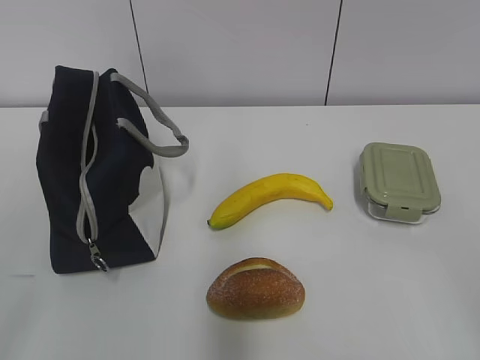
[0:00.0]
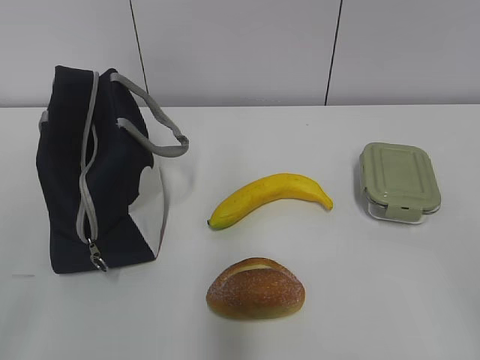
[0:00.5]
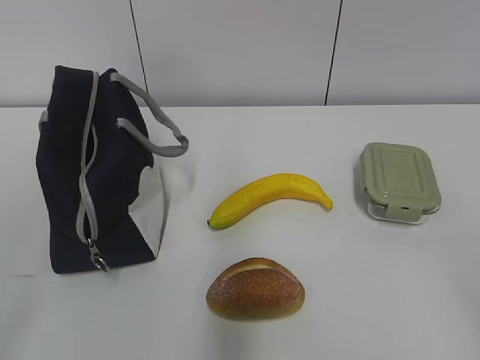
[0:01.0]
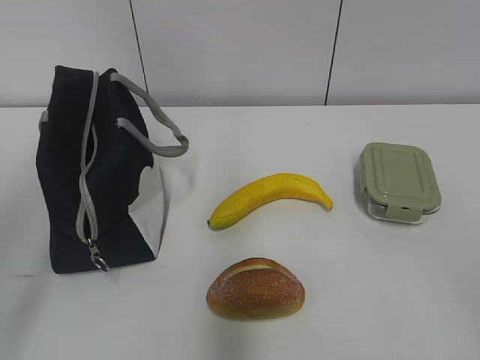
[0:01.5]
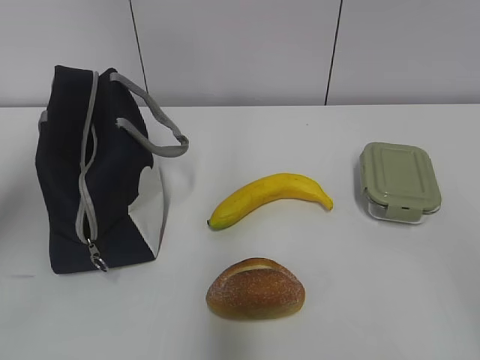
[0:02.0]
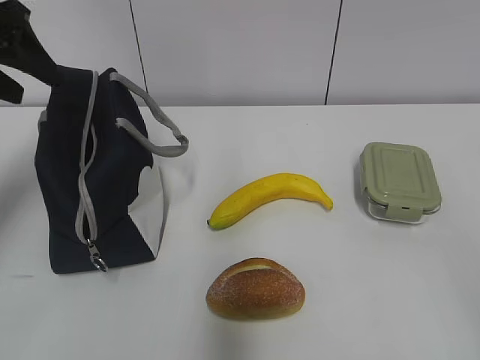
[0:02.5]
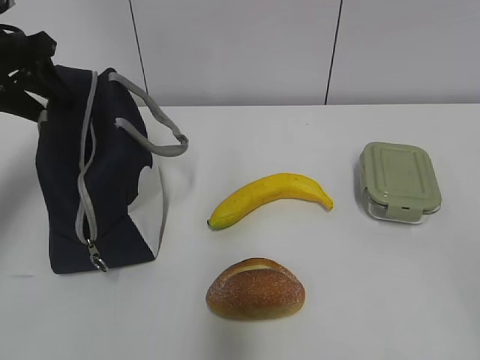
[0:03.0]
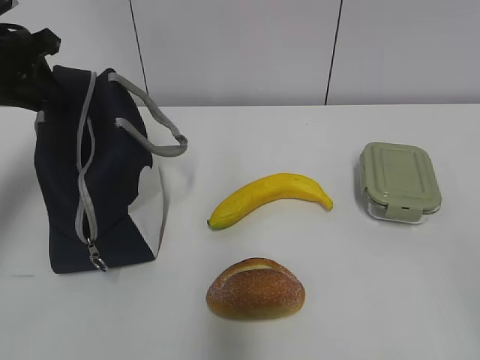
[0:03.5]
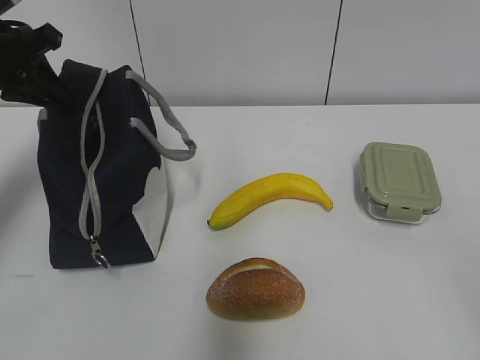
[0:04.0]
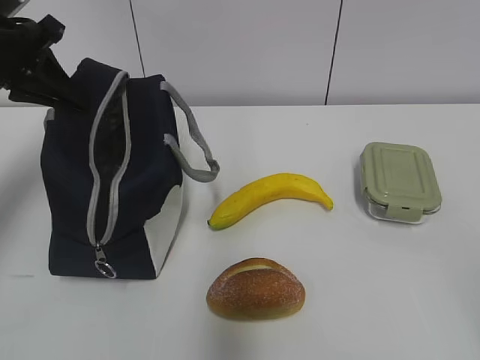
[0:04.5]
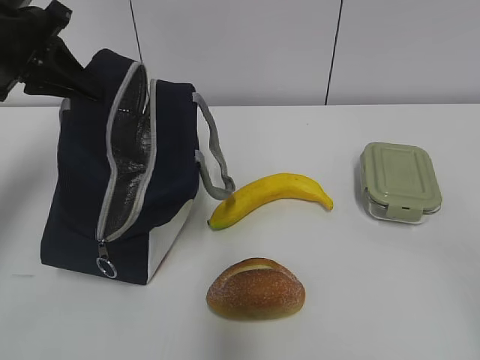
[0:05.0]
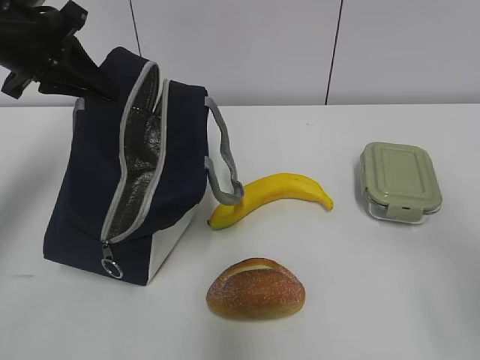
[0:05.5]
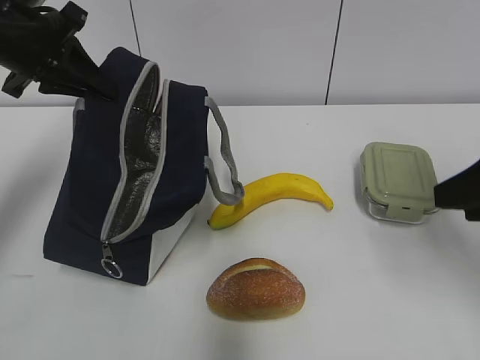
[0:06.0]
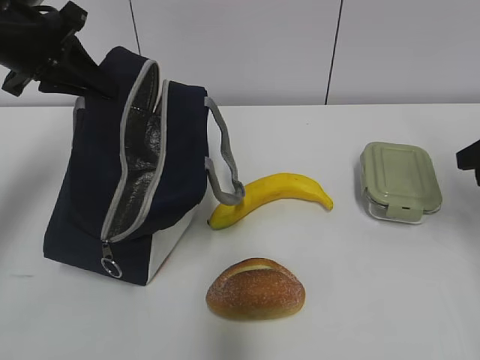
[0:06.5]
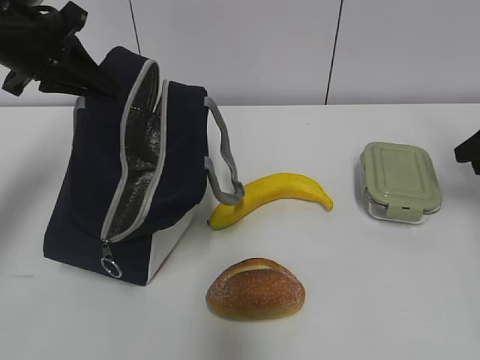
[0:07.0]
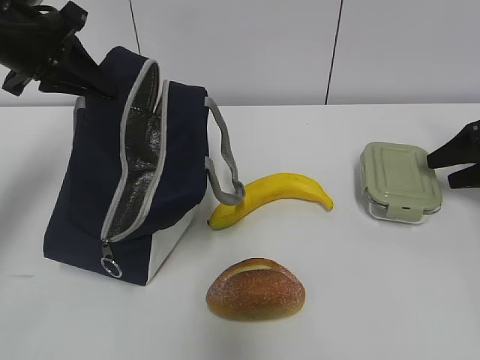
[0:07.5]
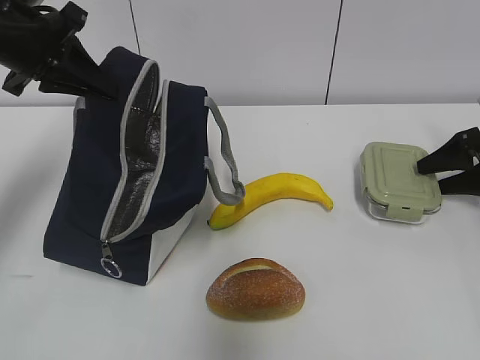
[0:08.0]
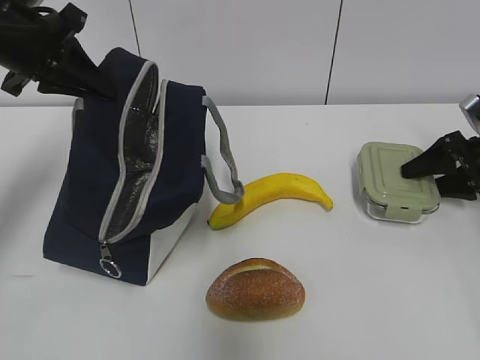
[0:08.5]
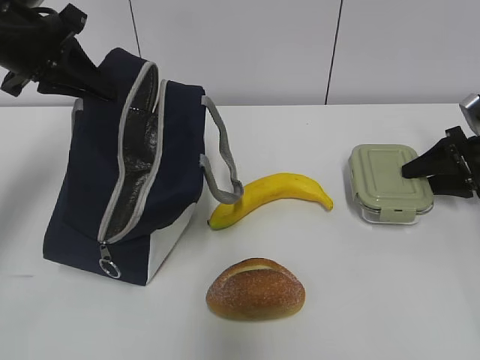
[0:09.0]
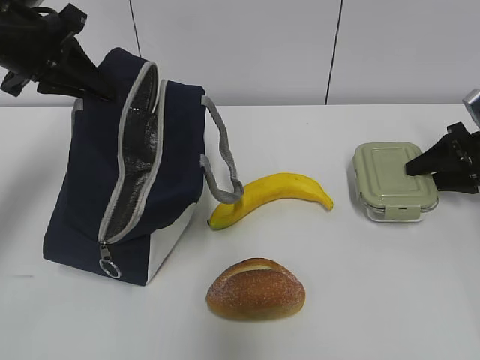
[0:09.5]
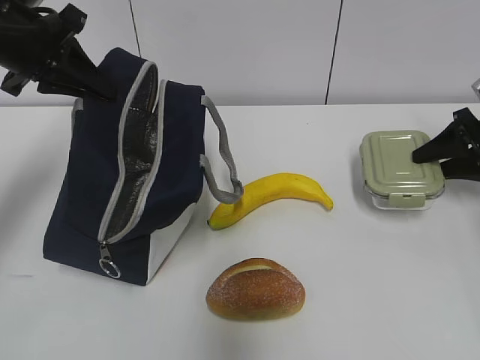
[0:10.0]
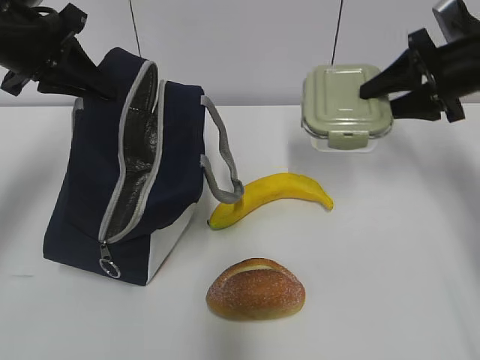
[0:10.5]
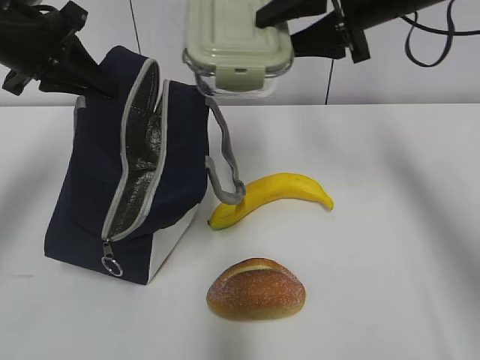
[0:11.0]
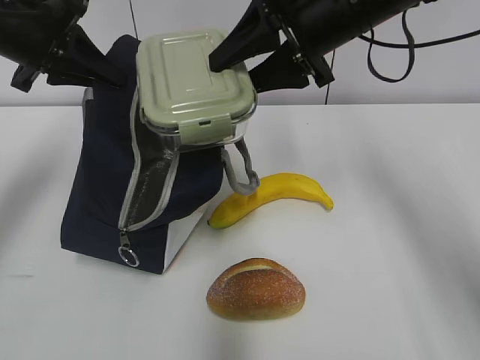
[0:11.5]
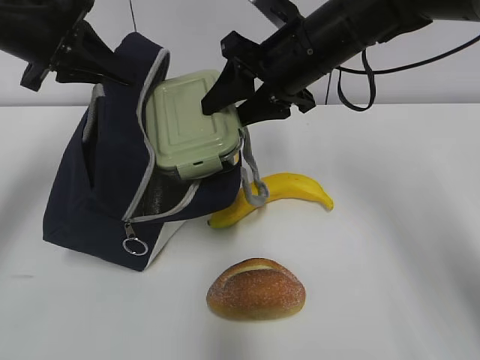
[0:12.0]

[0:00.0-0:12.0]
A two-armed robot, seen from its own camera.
0:02.0 to 0:04.0: The left gripper shifts some 20 cm forward and downward, and closes its fingers.
0:04.0 to 0:06.0: The right gripper shifts about 20 cm forward.
0:06.0 to 0:08.0: The right gripper heads forward, downward and to the right, covering some 30 cm.
0:08.0 to 0:10.0: The right gripper closes its fingers.
0:10.0 to 0:12.0: The right gripper travels to the left and upward by roughly 30 cm.

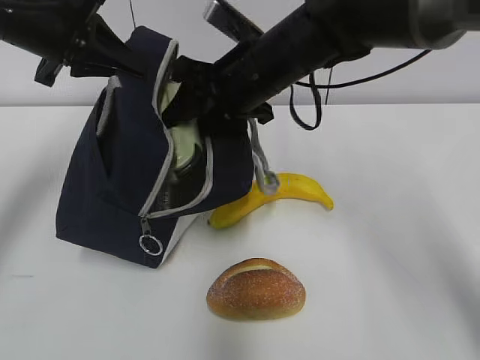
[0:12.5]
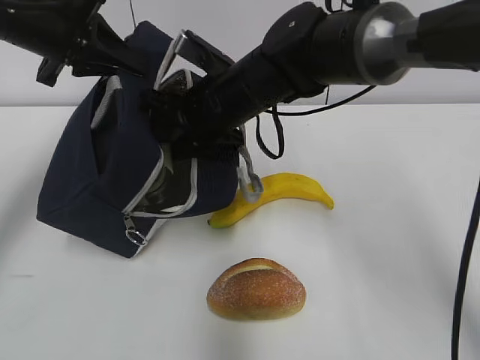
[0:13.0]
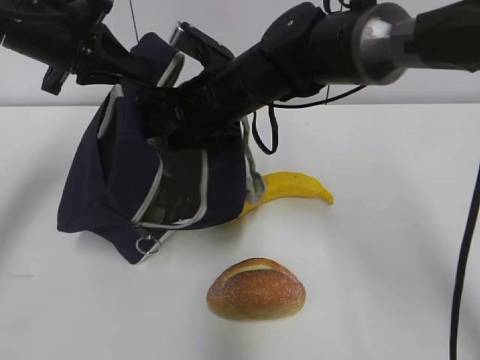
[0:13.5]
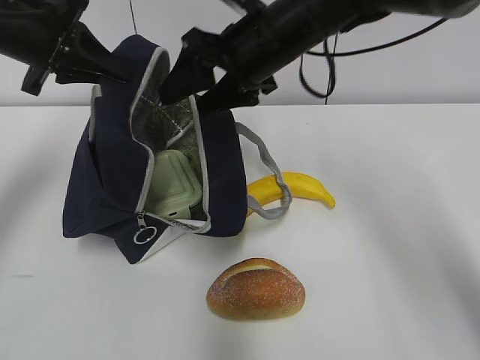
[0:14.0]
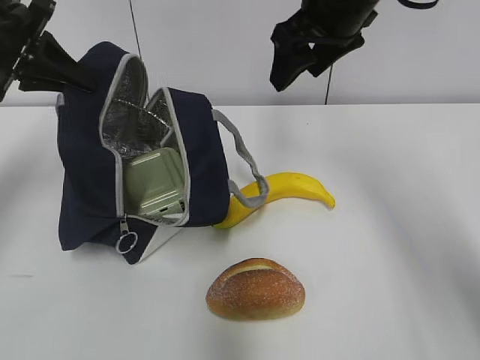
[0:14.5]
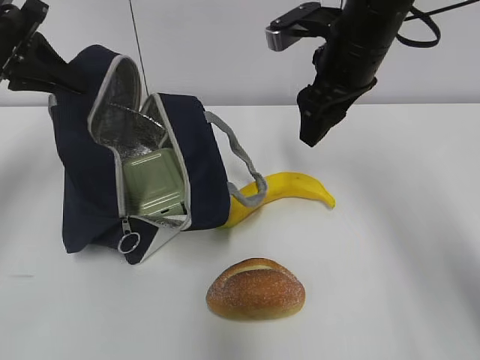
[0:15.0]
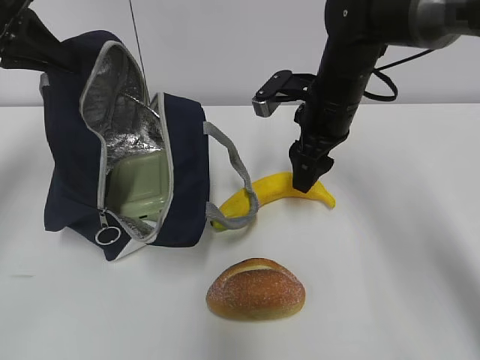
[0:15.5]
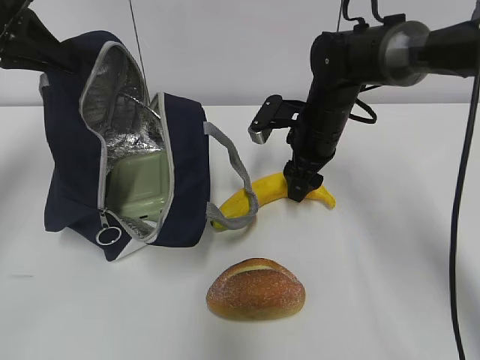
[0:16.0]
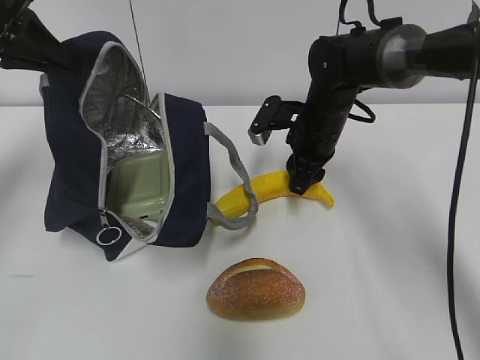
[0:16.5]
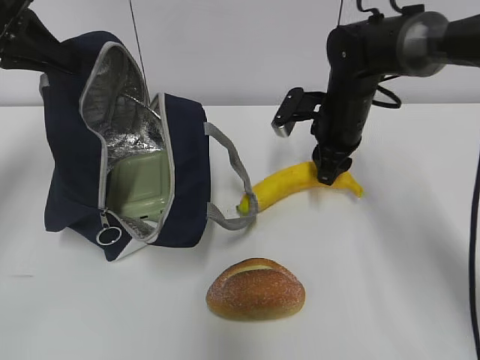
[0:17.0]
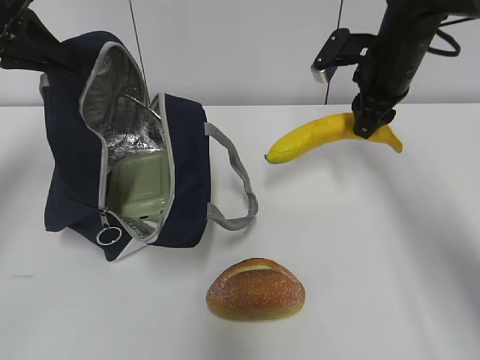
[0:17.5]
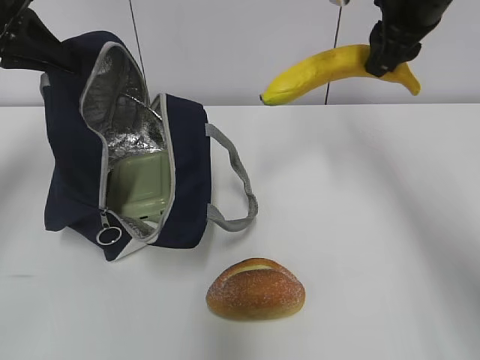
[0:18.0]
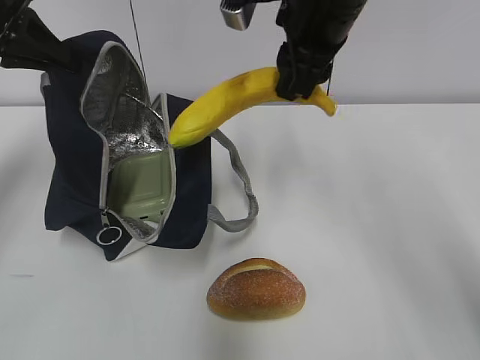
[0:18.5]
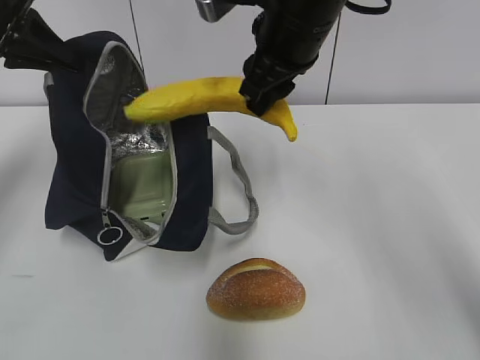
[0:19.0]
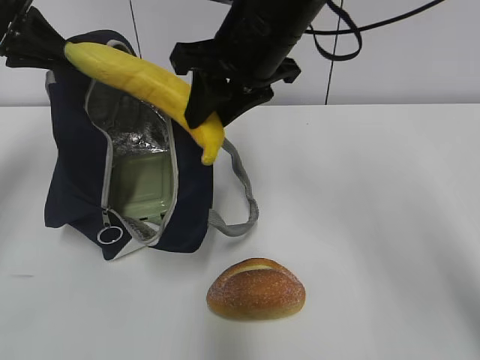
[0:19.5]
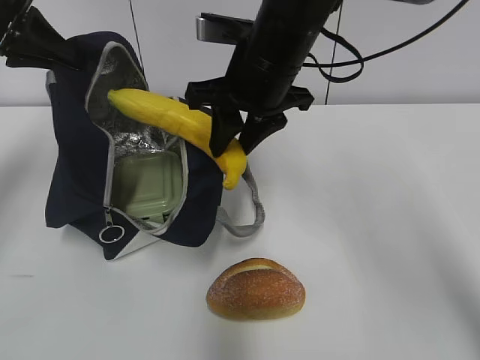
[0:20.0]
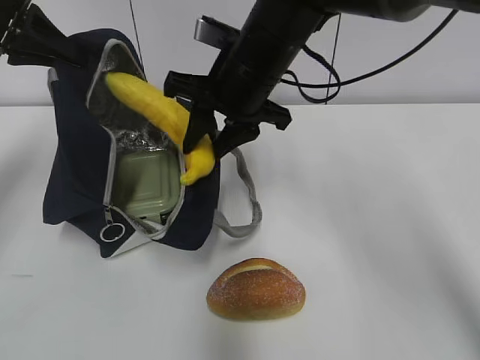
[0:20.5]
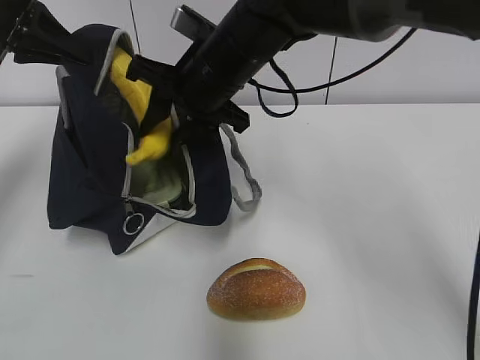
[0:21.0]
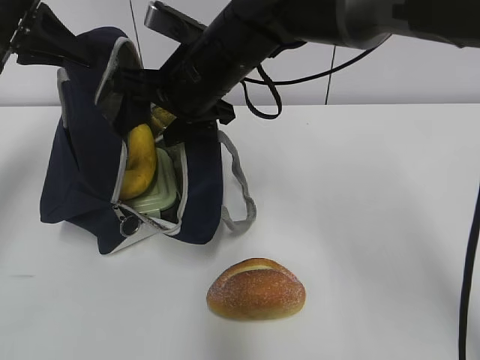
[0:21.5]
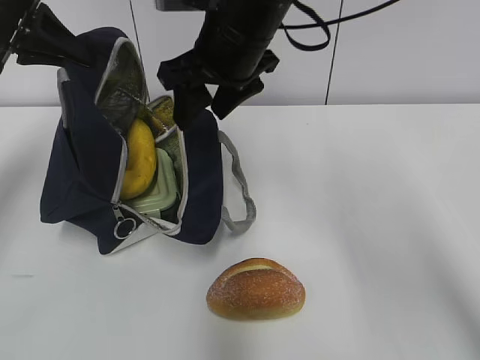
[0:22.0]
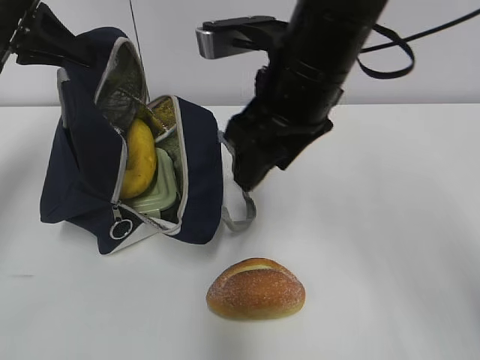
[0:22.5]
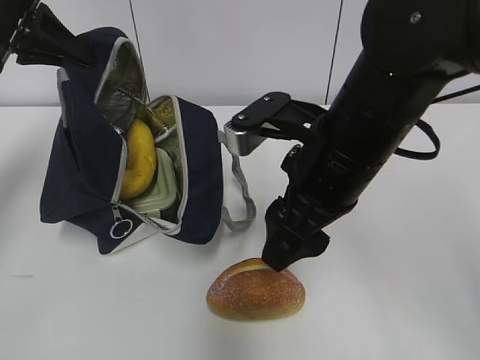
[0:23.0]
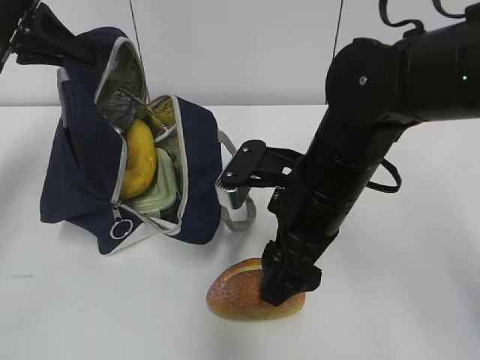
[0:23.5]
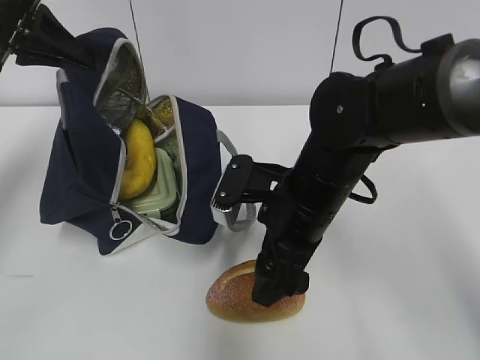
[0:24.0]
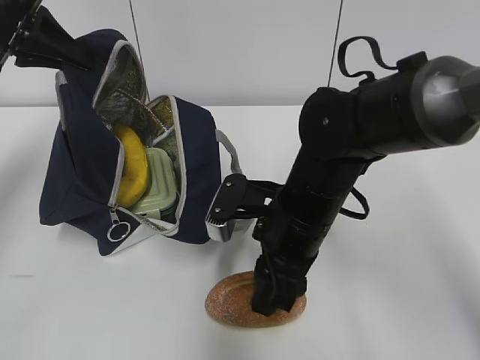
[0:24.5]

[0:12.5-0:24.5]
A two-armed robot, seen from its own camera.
0:12.5 to 0:14.5: The right gripper shifts some 10 cm to the right and upward, while the left gripper goes approximately 5 cm to the left.
0:14.5 to 0:16.5: The right gripper is displaced downward by roughly 20 cm, and closes up.
0:16.5 to 0:18.5: The right gripper travels upward and backward by about 20 cm.
0:18.5 to 0:20.5: The right gripper travels downward and to the left by roughly 10 cm.
0:20.5 to 0:22.5: The right gripper goes about 5 cm backward.
0:22.5 to 0:24.5: The right gripper shifts roughly 15 cm downward.

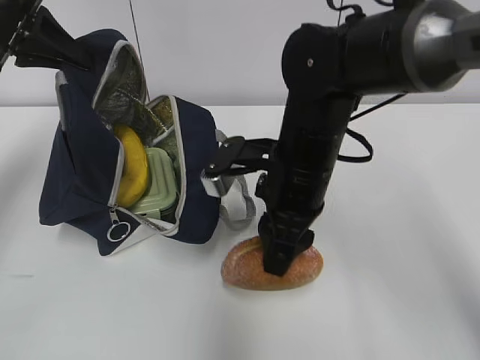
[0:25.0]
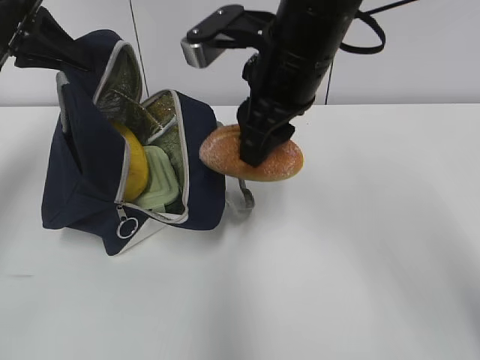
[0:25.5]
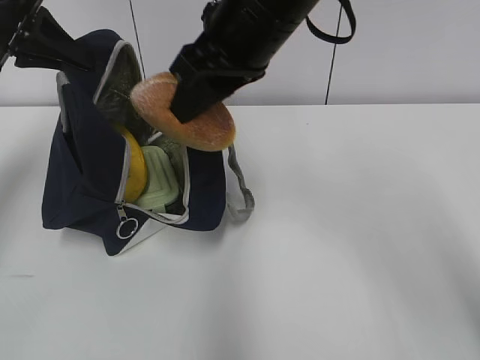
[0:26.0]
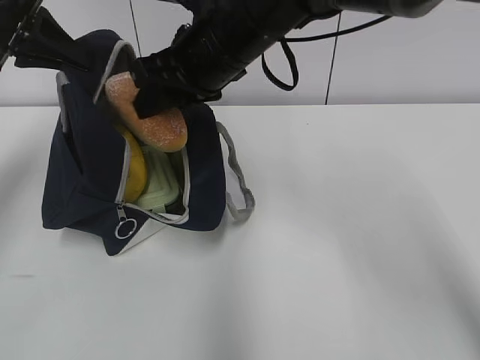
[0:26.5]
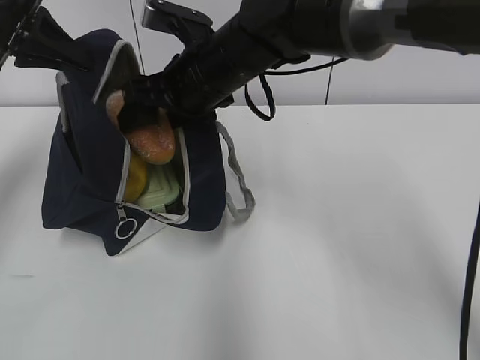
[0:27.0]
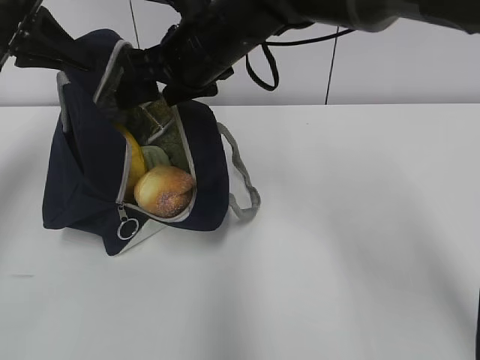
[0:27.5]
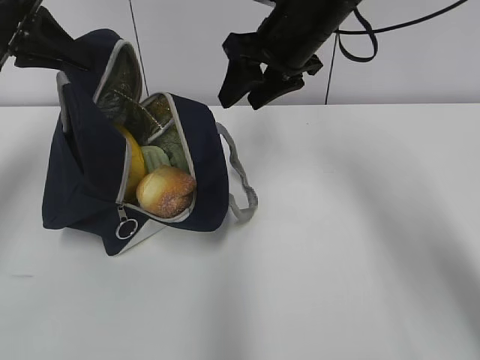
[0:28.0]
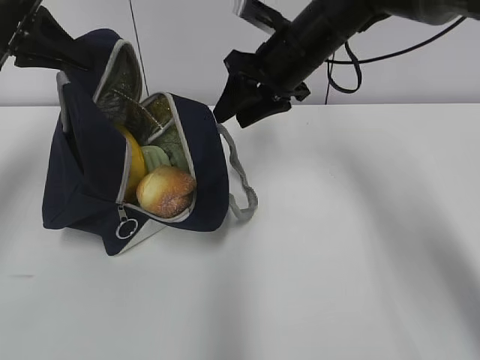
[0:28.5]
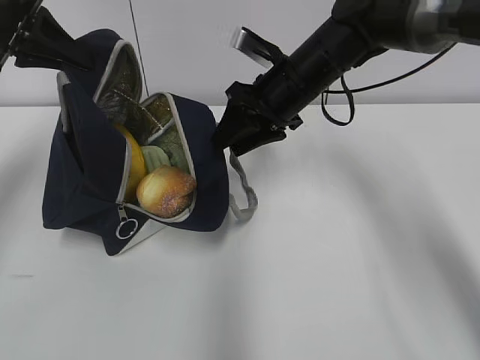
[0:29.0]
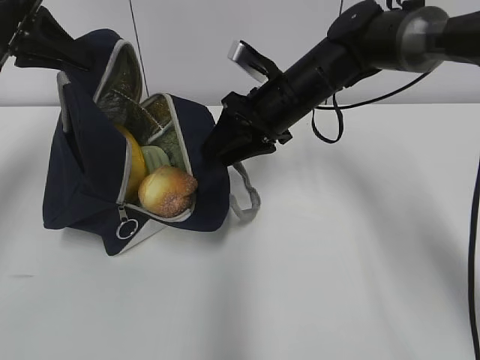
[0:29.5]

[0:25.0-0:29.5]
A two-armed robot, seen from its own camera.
0:25.0 to 0:27.0: The right gripper is displaced forward, to the left and upward by some 15 cm, and opens its fingers.
0:27.0 to 0:29.5: The right gripper goes roughly 10 cm to the right.
